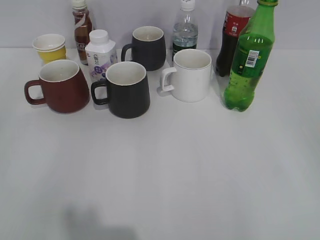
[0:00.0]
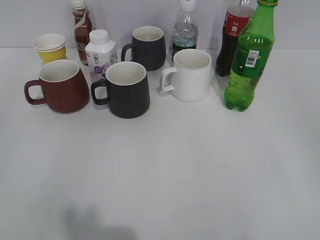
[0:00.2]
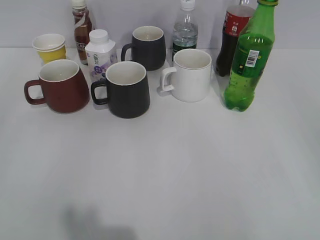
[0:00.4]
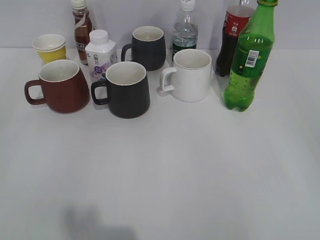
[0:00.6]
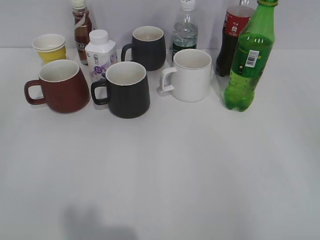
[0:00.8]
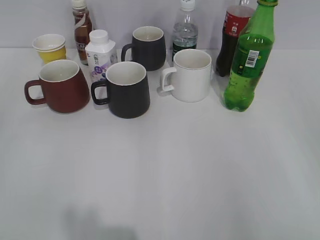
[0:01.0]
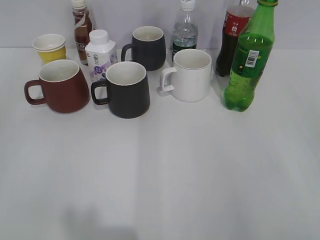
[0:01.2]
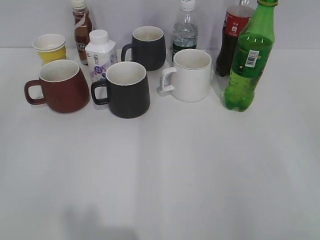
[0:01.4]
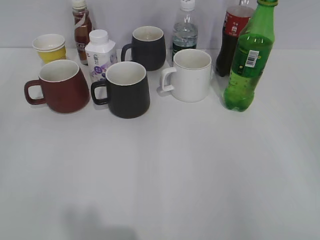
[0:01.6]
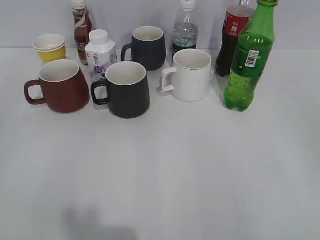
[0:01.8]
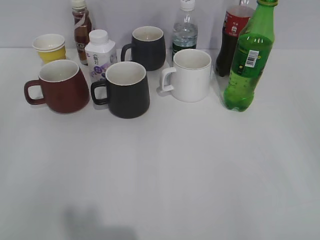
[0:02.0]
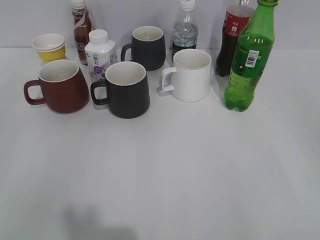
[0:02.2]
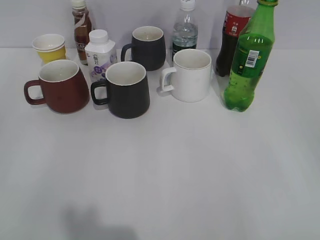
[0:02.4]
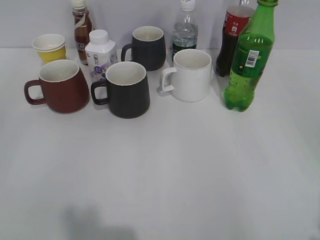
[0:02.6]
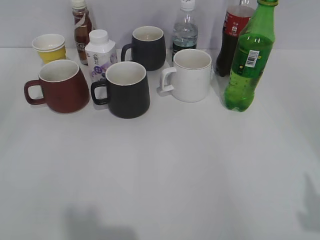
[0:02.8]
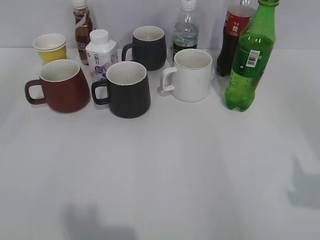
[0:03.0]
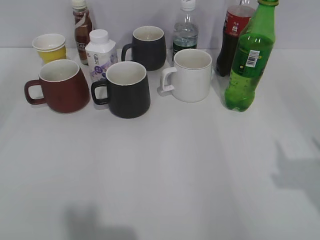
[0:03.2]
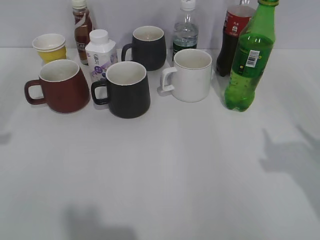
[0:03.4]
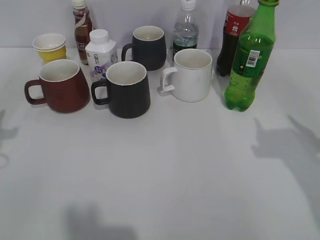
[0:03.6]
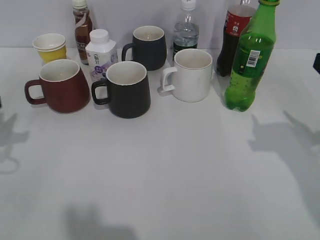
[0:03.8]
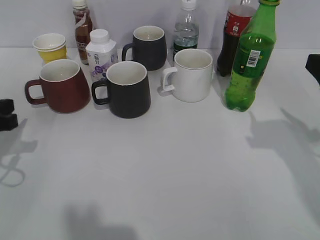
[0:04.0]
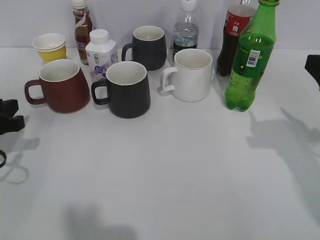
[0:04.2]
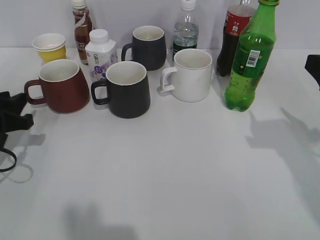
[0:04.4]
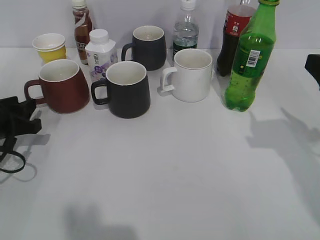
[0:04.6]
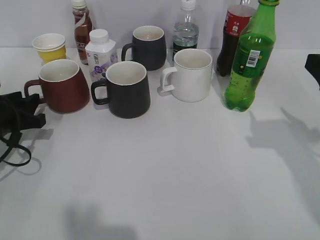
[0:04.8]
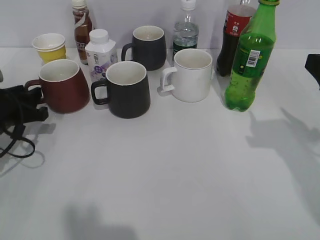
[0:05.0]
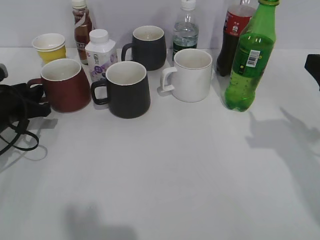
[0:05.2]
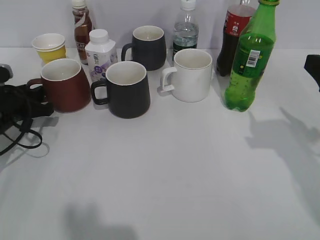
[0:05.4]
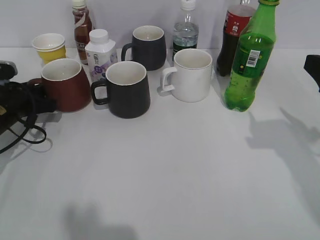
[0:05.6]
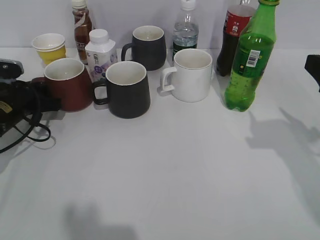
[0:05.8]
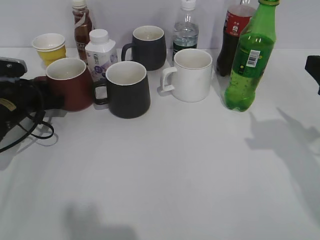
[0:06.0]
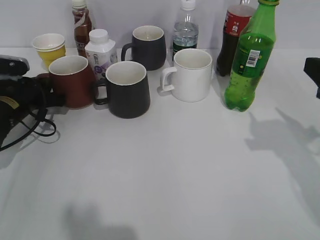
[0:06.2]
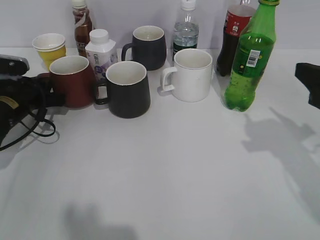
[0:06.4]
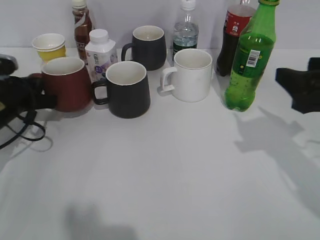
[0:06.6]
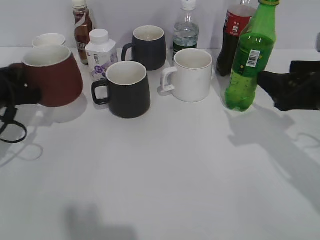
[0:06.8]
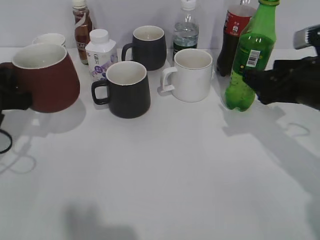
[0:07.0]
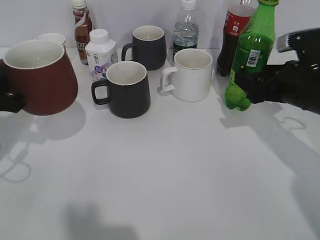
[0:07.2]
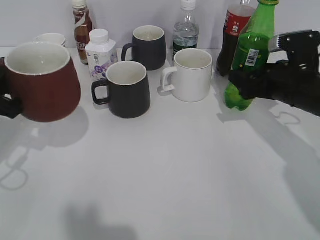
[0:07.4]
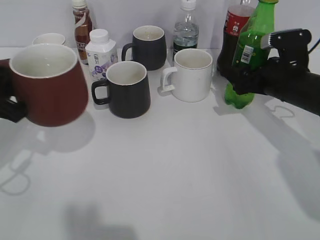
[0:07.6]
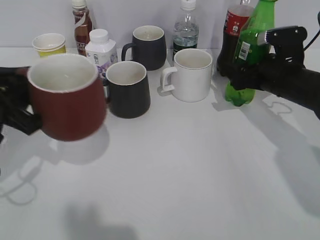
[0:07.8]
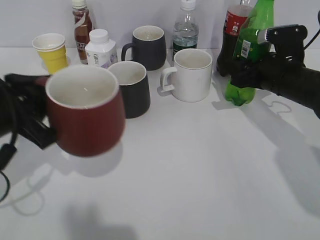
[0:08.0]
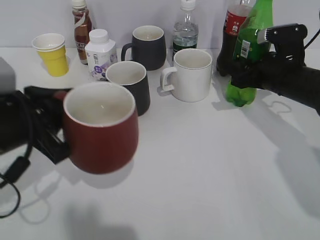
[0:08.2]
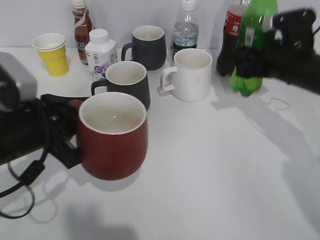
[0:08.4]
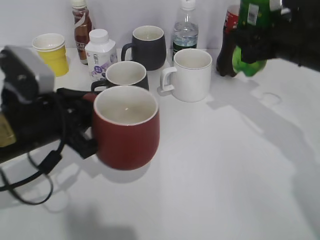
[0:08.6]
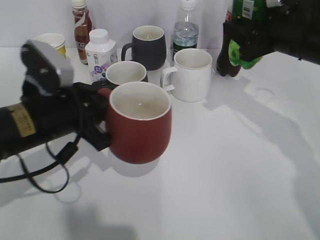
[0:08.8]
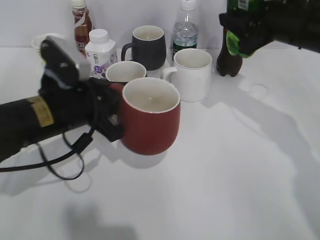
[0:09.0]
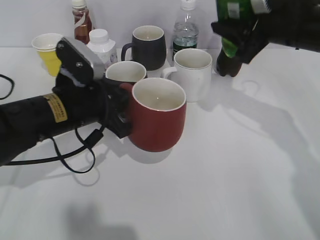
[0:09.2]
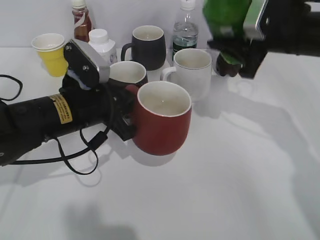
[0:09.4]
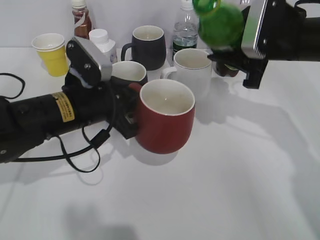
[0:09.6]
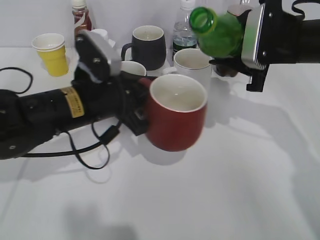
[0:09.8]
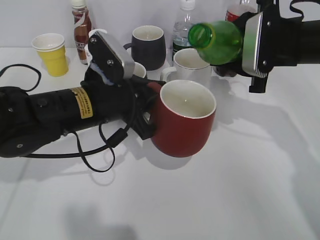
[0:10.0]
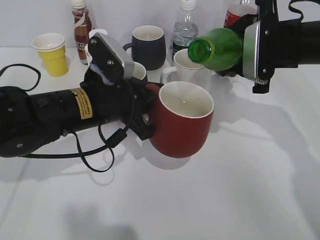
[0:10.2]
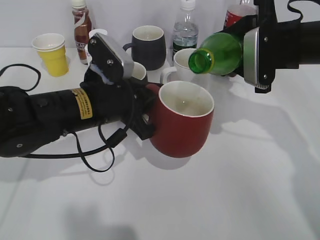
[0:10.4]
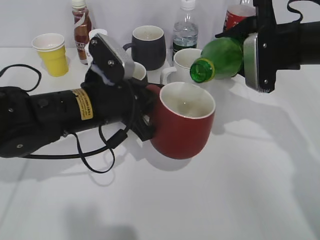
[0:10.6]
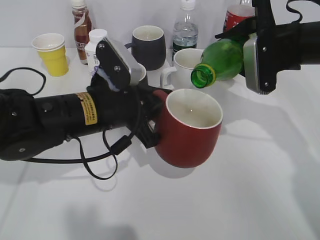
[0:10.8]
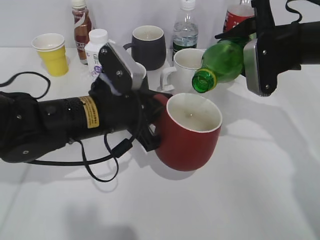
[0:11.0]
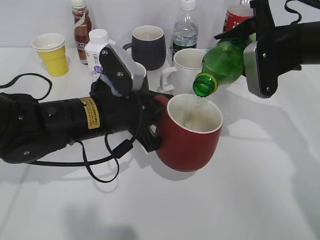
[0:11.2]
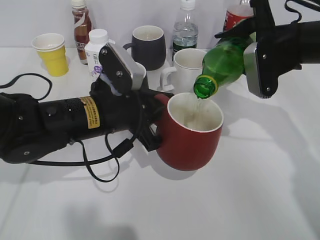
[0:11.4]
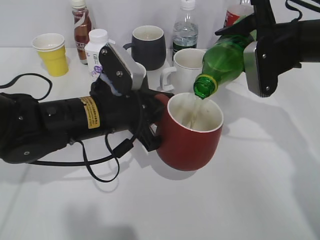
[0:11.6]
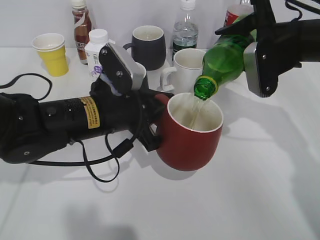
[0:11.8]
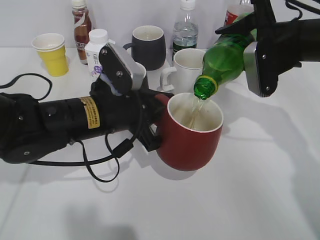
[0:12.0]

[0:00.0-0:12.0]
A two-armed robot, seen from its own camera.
Step, 0:02.0 to 0:05.8: Grasp the red cup with left gripper.
Step, 0:06.0 to 0:08.0: Grasp the bottle with sprite with right gripper.
0:01.6 to 0:03.0: Both grippers move forward, approximately 5 cm.
0:03.0 to 0:04.4: The left gripper goes about 25 cm forward and downward; the right gripper goes about 15 cm forward.
0:04.4 to 0:06.0: The left gripper travels forward by approximately 10 cm.
0:06.0 to 0:07.6: The left gripper goes about 15 cm backward and upward, and closes up, while the right gripper heads forward and downward, covering some 15 cm.
0:07.6 to 0:09.0: The left gripper heads to the right, covering roughly 10 cm. The right gripper travels upward by some 10 cm, and closes up.
0:09.0 to 0:10.4: The left gripper moves roughly 5 cm.
0:10.4 to 0:12.0: There are only small adjustments of the grippers.

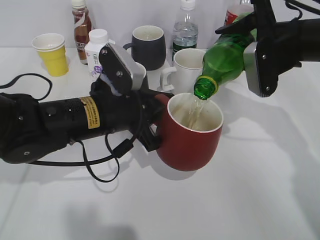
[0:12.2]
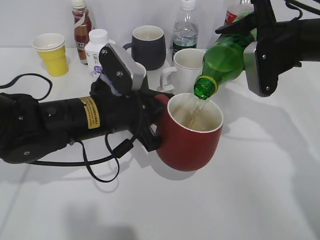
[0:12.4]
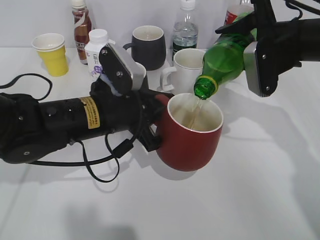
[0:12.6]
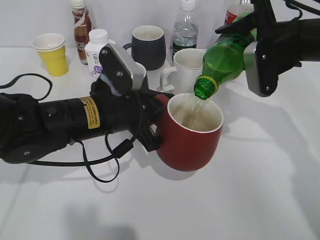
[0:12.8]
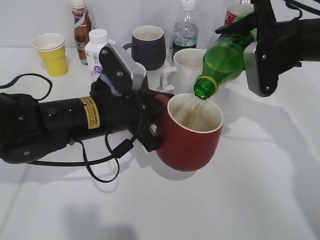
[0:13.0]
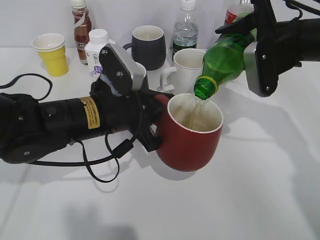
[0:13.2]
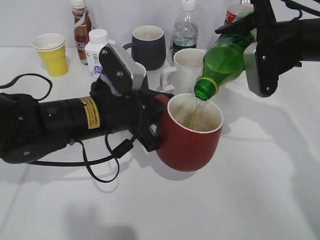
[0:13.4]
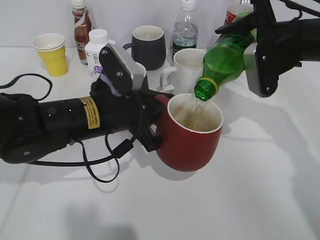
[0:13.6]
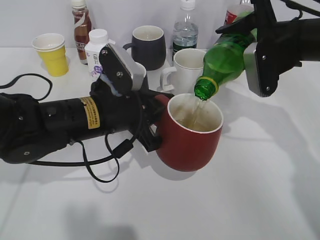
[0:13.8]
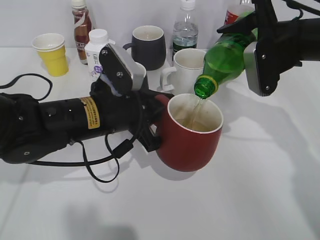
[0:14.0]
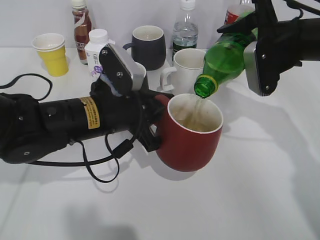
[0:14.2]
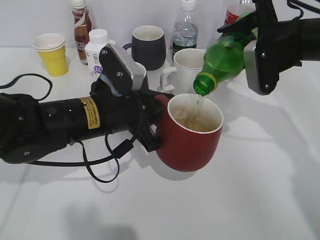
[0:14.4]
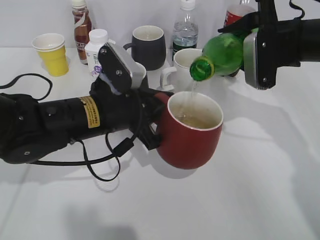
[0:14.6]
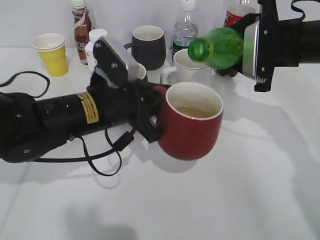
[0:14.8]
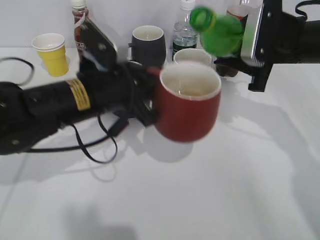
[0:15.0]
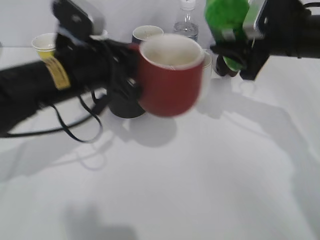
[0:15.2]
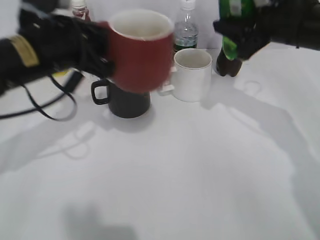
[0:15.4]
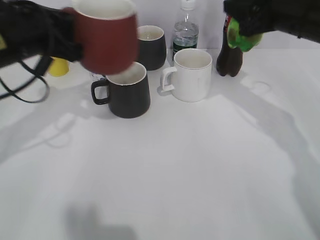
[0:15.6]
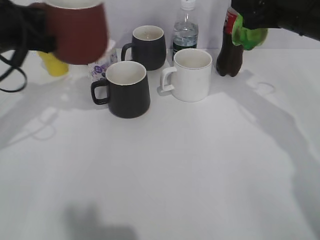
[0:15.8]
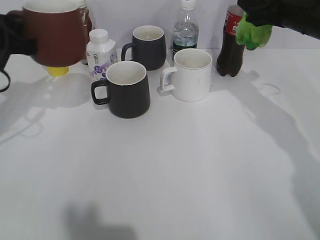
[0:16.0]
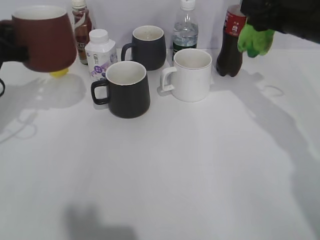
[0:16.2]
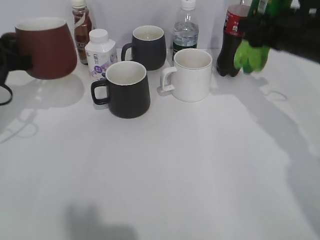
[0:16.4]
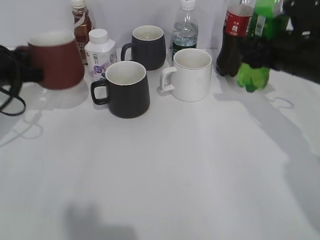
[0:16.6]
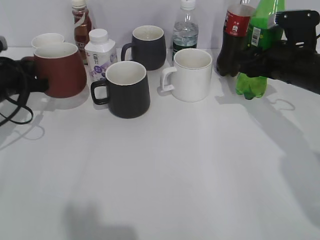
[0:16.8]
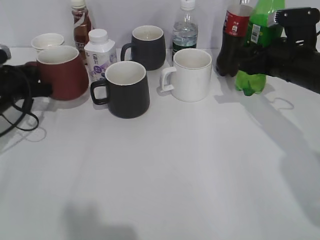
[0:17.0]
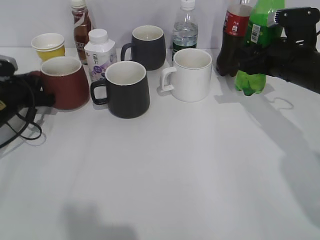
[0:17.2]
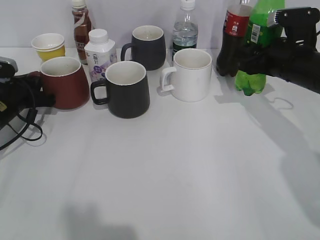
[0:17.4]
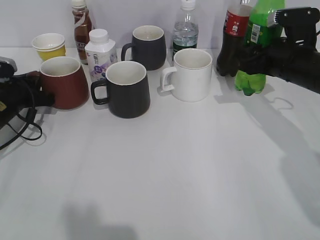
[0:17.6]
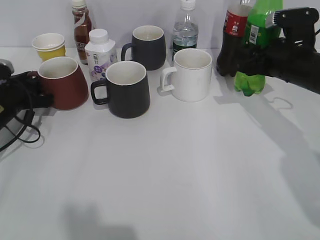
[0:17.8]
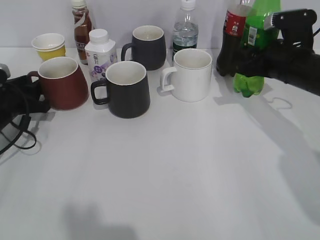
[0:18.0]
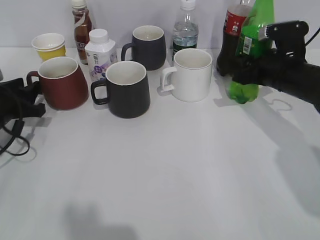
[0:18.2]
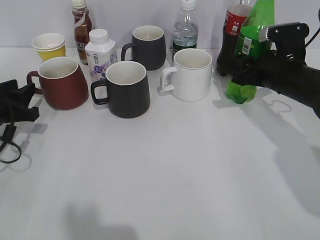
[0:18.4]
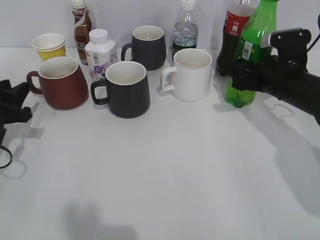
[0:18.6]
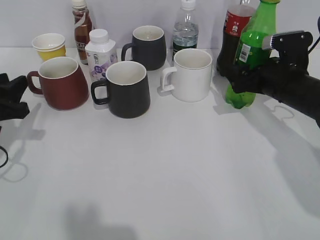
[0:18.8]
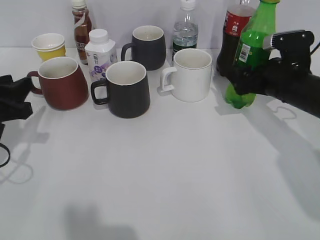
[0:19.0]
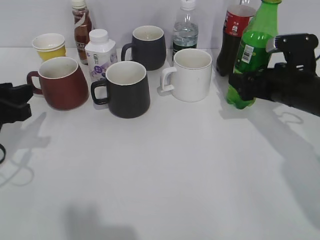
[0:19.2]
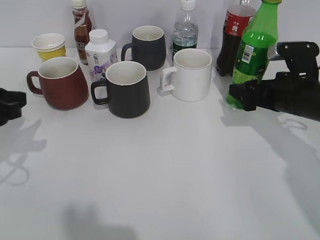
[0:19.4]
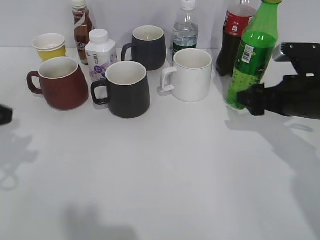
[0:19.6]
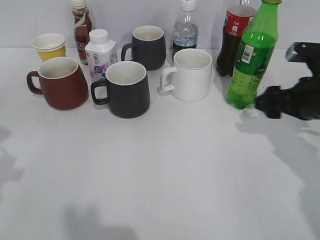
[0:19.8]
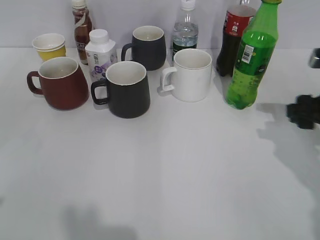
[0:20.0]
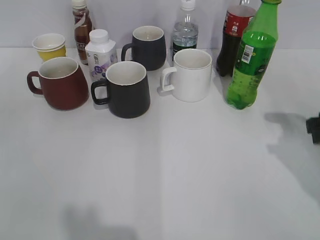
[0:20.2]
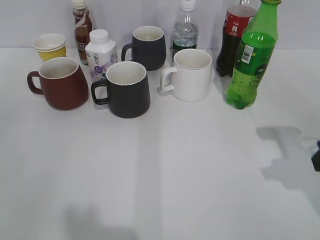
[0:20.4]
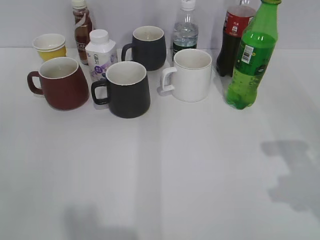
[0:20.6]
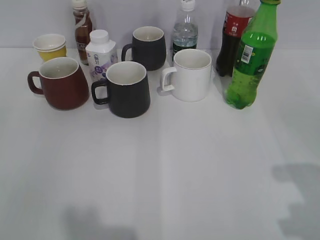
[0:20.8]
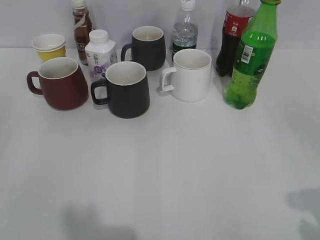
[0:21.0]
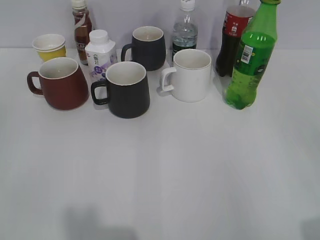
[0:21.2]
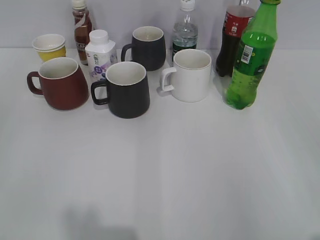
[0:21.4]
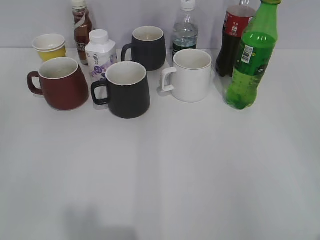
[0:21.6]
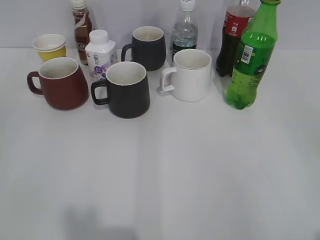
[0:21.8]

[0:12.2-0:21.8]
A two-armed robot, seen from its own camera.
Step, 0:12.2 to 0:14.8: Pour the sprite from bottle to cup with right gripper.
Step, 0:15.0 to 0:15.8: Place the red cup on the table with left gripper.
Step, 0:16.0 to 0:19.4: Place the sprite bottle on the table with right gripper.
0:12.2 to 0:13.8: Both grippers stay about where they are.
0:13.8 to 0:15.4: The left gripper travels upward and to the left by some 10 cm.
0:15.4 to 0:17.0: The left gripper is displaced to the left, downward and forward by some 20 cm. Meanwhile the right gripper travels downward by approximately 5 cm.
0:17.0 to 0:18.6: The left gripper moves backward, about 5 cm, and opens up.
0:18.6 to 0:20.2: The right gripper shifts roughly 10 cm backward and to the right, and opens, then closes again. Meanwhile the left gripper goes roughly 25 cm backward and upward.
0:20.2 to 0:21.8: The right gripper travels backward by roughly 25 cm.
